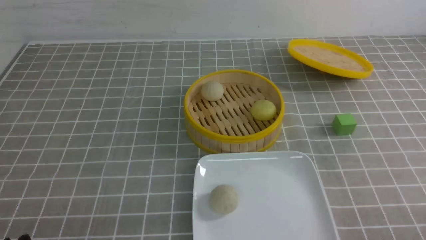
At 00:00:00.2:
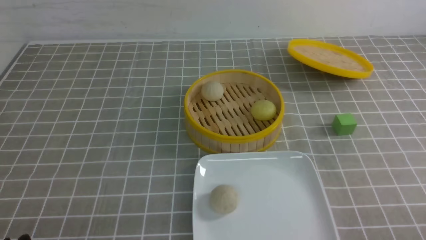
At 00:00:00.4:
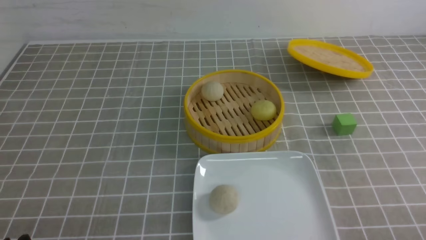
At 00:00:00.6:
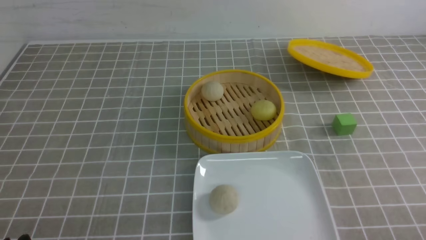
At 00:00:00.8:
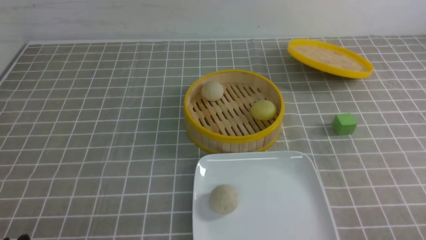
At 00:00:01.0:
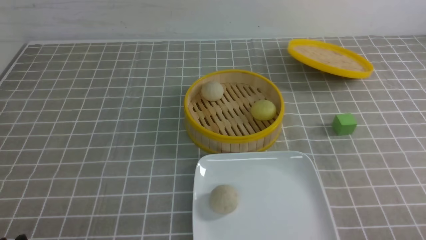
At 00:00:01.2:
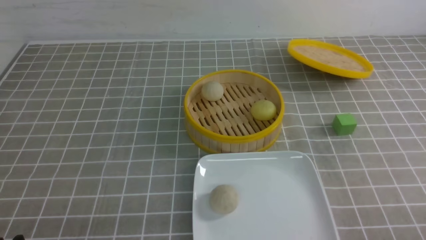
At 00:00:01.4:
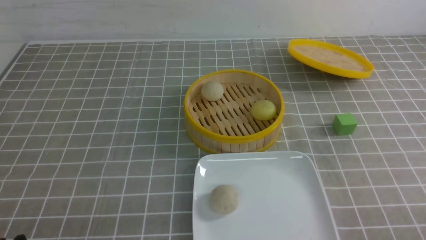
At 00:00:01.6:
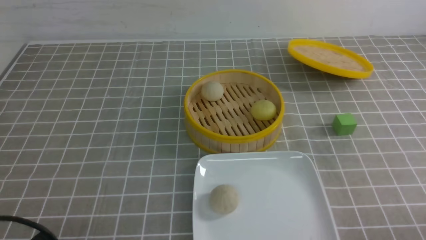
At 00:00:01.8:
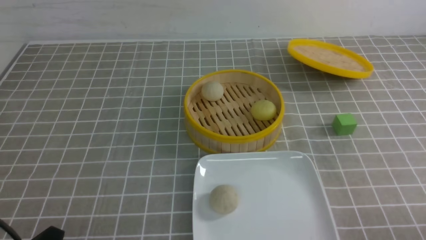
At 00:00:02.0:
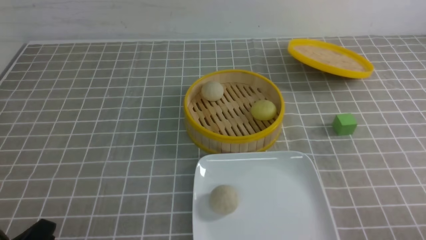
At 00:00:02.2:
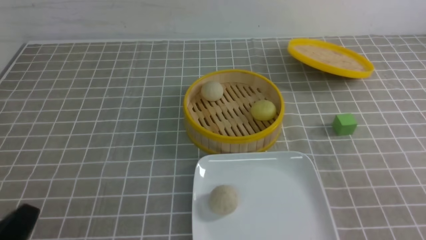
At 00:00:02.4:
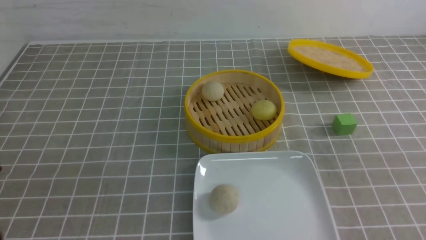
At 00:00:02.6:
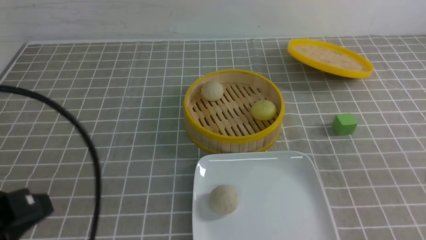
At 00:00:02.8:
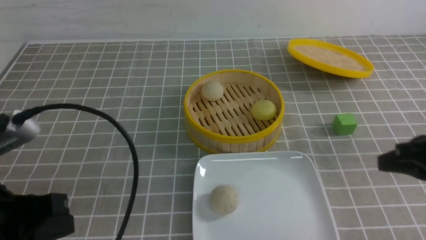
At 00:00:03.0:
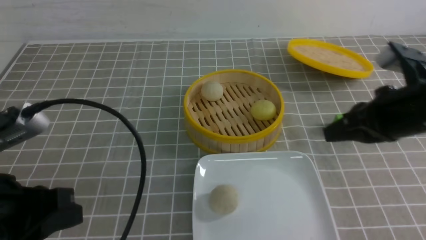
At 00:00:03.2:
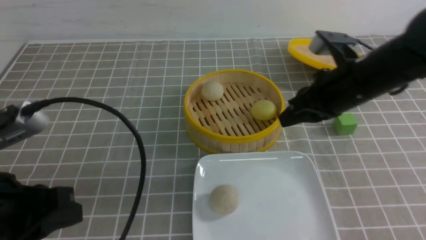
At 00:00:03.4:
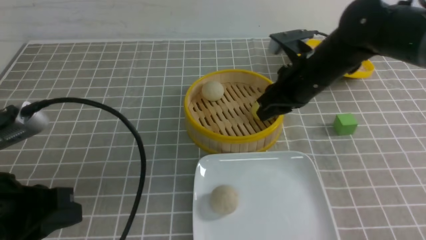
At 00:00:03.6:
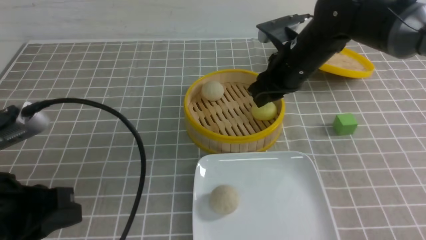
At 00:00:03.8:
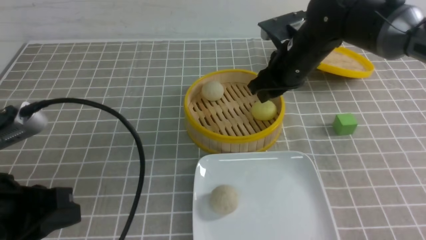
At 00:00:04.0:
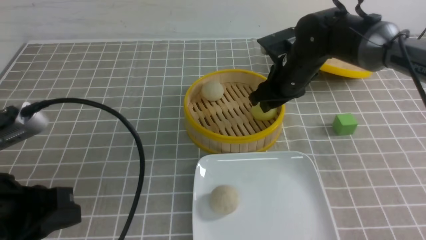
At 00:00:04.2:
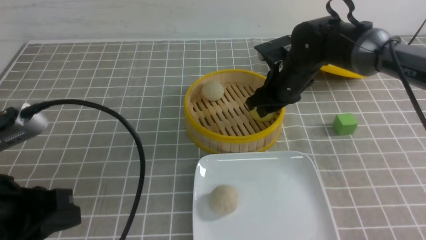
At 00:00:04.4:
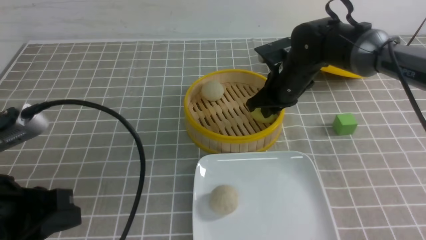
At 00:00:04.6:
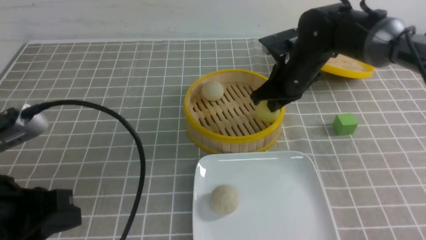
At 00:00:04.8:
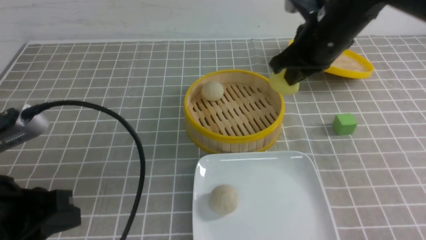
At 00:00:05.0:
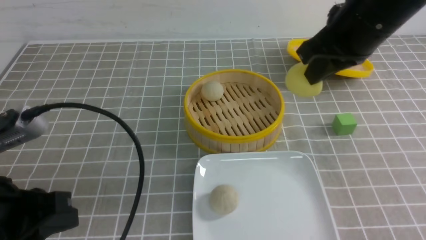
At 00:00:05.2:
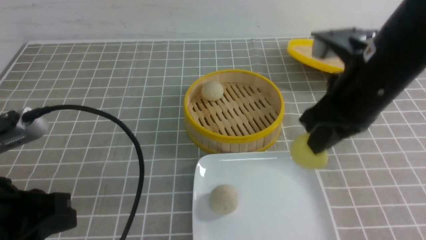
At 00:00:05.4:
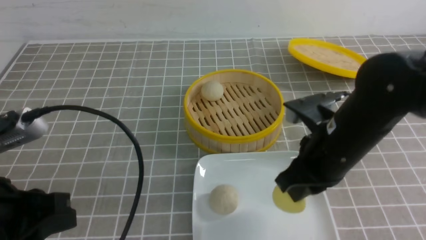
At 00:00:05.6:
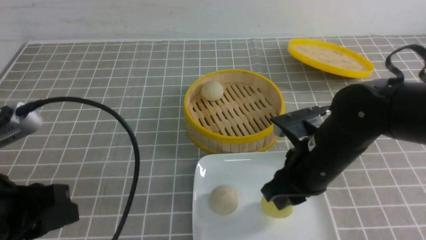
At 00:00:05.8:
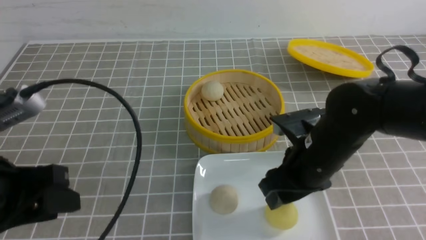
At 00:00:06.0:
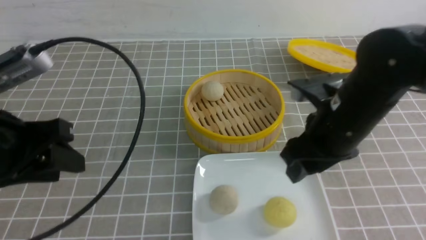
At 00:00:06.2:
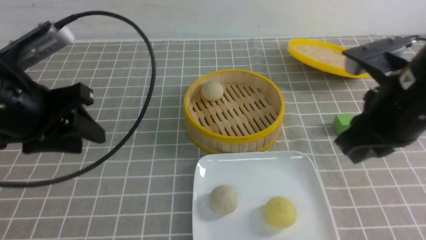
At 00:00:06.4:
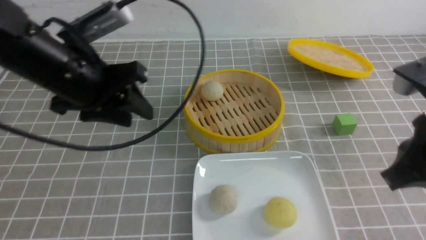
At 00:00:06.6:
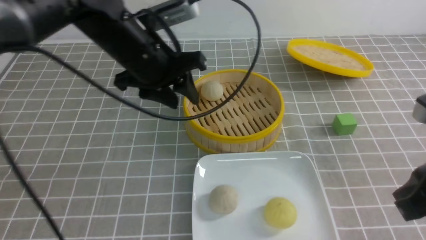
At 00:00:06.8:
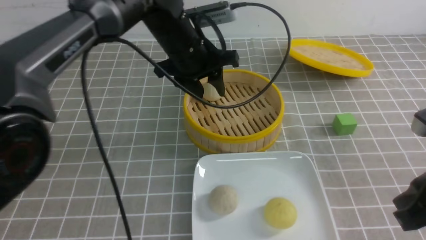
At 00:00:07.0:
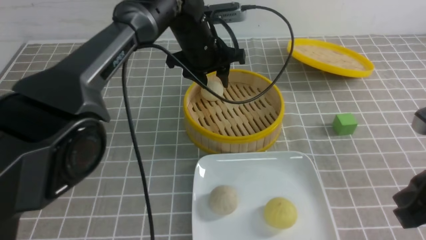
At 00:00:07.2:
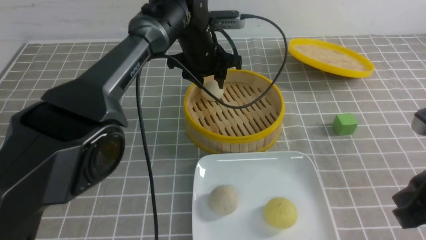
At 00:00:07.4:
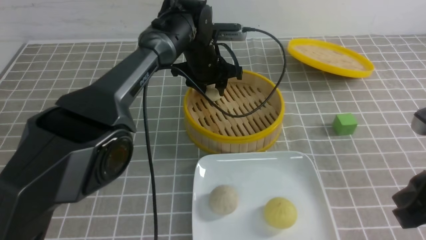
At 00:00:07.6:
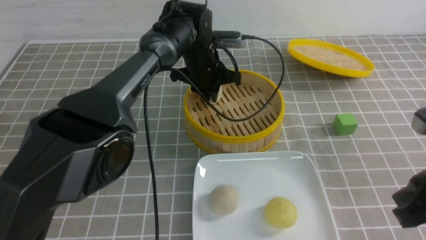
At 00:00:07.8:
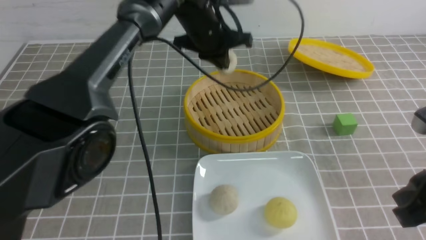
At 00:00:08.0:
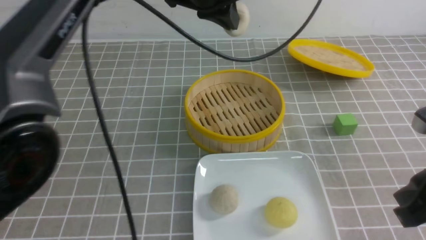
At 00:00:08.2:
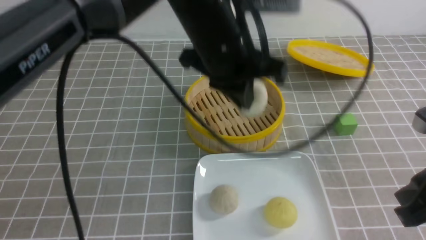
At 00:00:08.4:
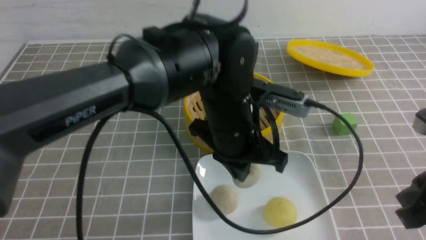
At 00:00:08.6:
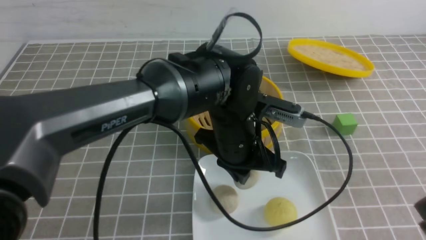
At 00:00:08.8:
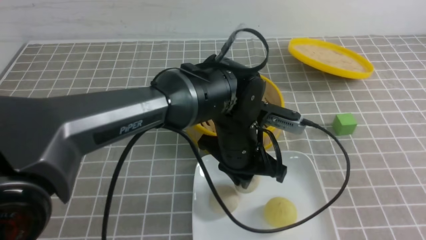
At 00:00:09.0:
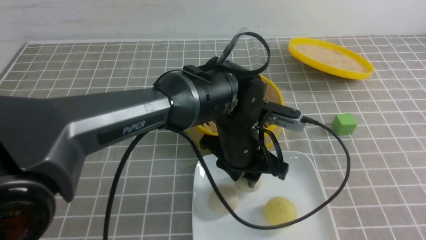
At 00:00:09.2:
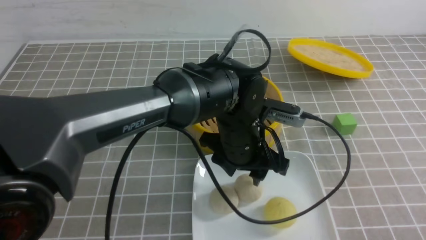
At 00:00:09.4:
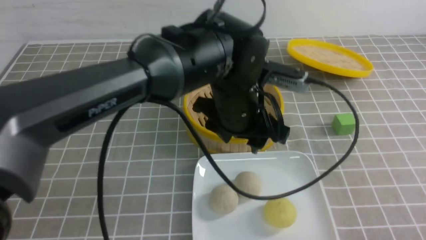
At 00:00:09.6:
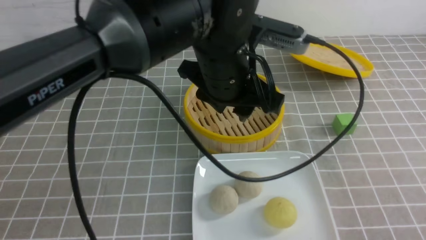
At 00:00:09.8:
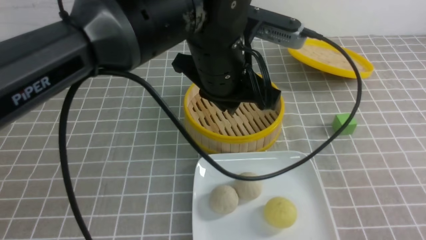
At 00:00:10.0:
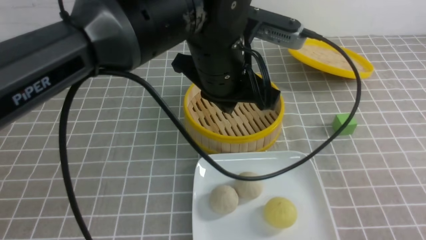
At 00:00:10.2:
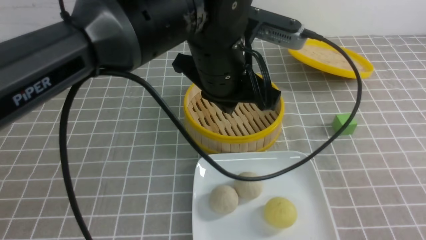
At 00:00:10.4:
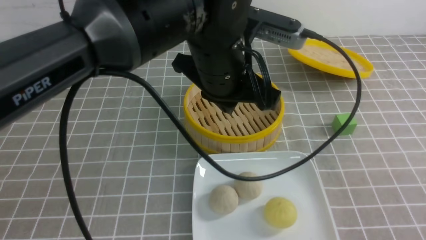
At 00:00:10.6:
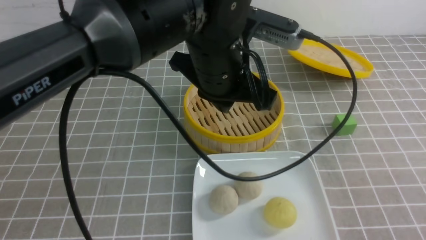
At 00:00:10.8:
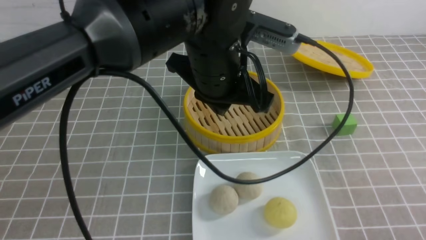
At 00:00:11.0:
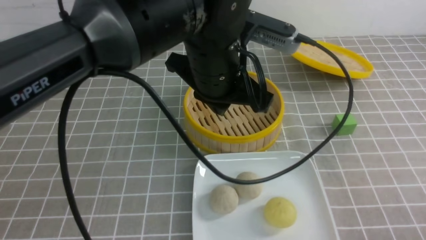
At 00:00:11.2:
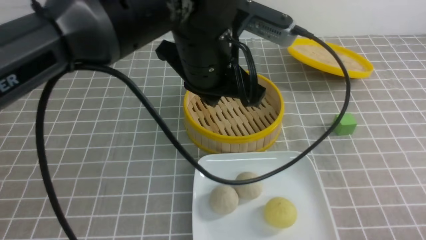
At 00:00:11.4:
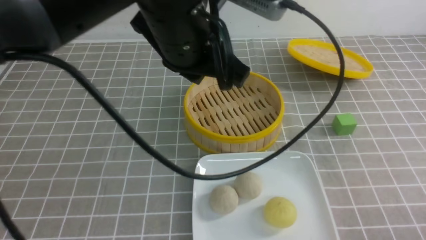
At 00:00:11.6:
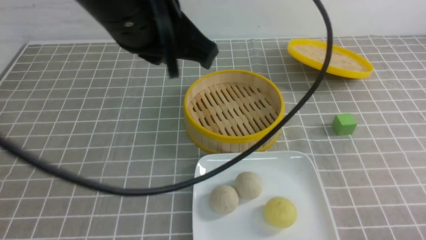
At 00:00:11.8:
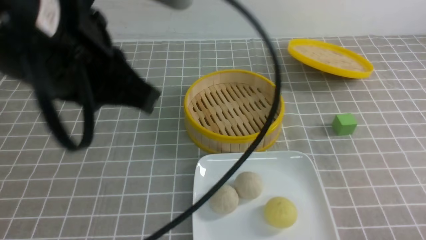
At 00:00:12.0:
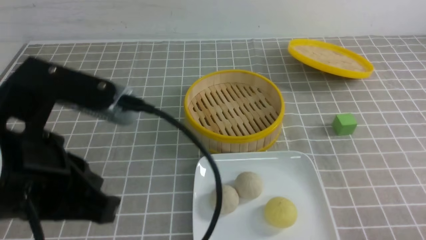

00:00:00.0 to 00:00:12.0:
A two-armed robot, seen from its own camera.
Step, 00:00:00.0 to 00:00:04.6: use the right arm to grab the steamed stuffed bun that is closest to it.
Step, 00:00:04.8 to 00:00:05.6: use the right arm to put the steamed stuffed bun into the plate.
Step, 00:00:06.0 to 00:00:07.6: use the left arm to grab the steamed stuffed bun that is closest to it.
Step, 00:00:07.8 to 00:00:09.0: use the left arm to put the steamed stuffed bun into the plate.
00:00:01.6 to 00:00:03.0: The right gripper heads forward and upward, covering some 25 cm, and closes; the left gripper goes roughly 15 cm upward and forward, and closes.
00:00:03.0 to 00:00:04.4: The right gripper goes approximately 20 cm forward, to the left and downward, and opens, then closes again.
00:00:04.4 to 00:00:06.0: The left gripper heads forward, covering some 5 cm, and opens its fingers, while the right gripper shifts about 15 cm backward, and opens up.
00:00:06.0 to 00:00:07.6: The left gripper moves forward and to the right, some 35 cm, and closes its fingers; the right gripper travels backward and to the right by approximately 15 cm, and closes its fingers.
00:00:07.6 to 00:00:09.0: The left gripper goes some 20 cm backward, and opens up. The right gripper travels backward and to the right by about 15 cm.
00:00:09.0 to 00:00:10.4: The right gripper heads downward, covering some 5 cm; the left gripper goes roughly 15 cm upward, and closes.
00:00:10.4 to 00:00:12.0: The left gripper is displaced to the left and backward by about 20 cm. The right gripper goes roughly 10 cm downward.

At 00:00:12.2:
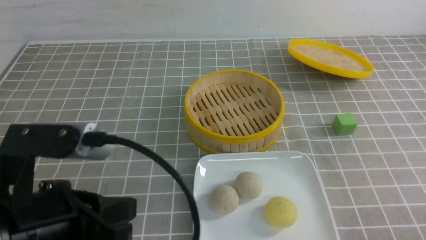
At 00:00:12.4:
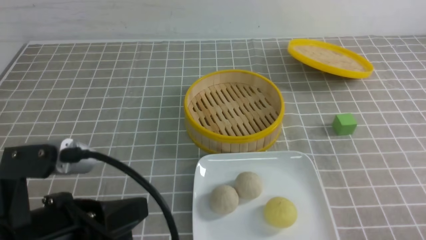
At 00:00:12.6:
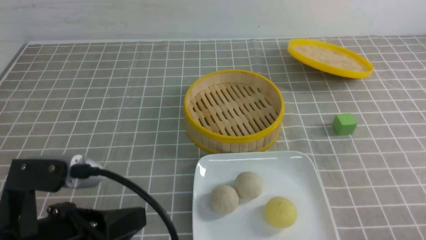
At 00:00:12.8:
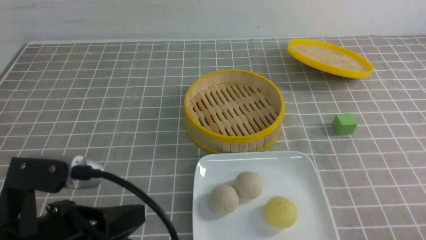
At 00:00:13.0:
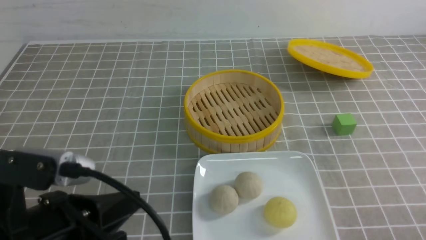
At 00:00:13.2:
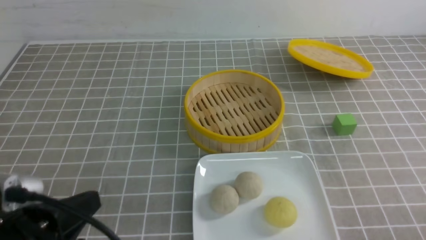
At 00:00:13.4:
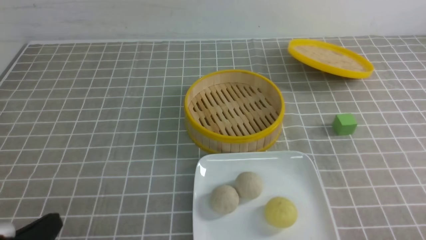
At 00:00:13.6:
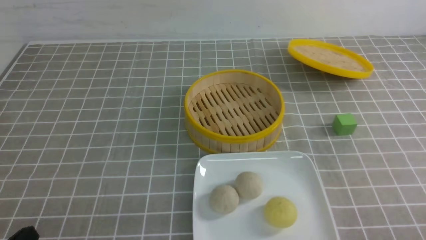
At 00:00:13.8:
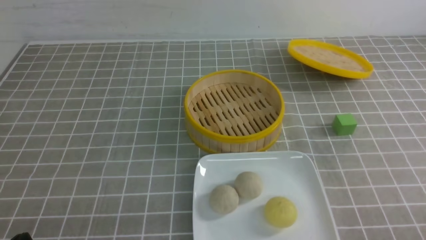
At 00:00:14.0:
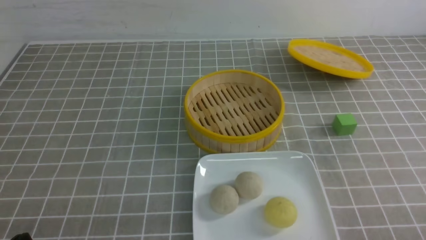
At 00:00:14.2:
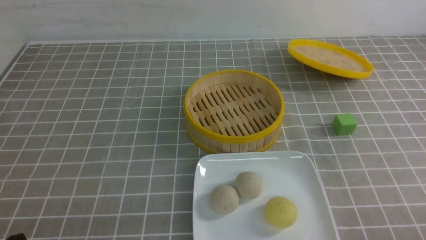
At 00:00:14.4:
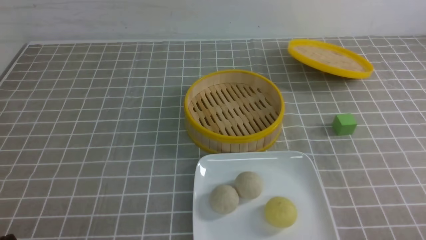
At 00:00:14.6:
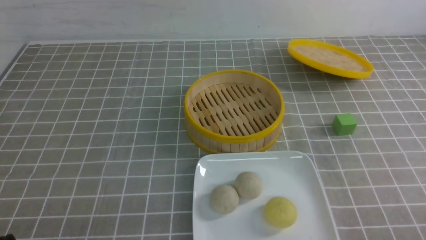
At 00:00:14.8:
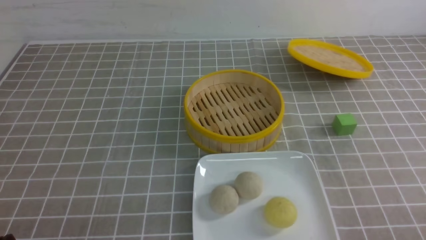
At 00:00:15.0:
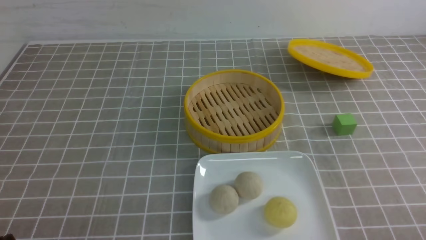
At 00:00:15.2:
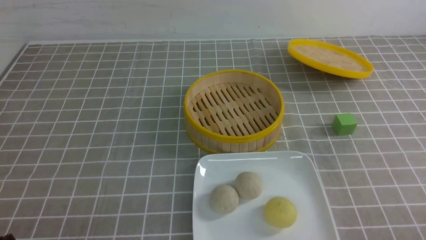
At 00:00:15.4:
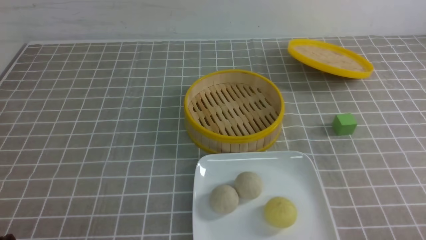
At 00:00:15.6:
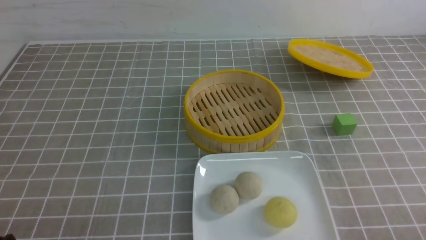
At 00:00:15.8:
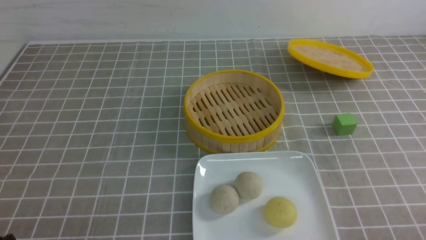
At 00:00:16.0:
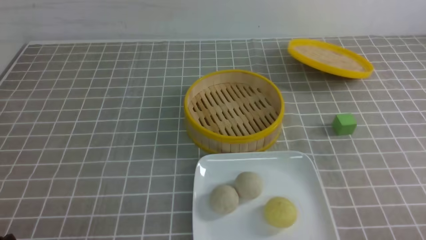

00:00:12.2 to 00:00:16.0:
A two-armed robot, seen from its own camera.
00:00:12.2 to 00:00:13.4: The left gripper is displaced downward and to the left by about 15 cm.
00:00:14.8 to 00:00:16.0: Both grippers stay put.
